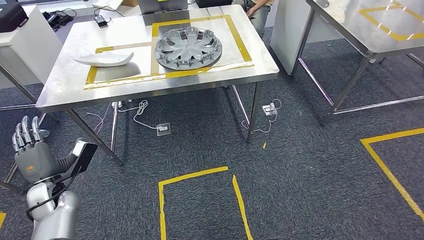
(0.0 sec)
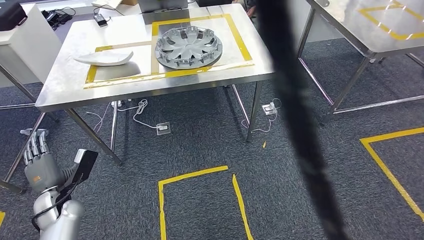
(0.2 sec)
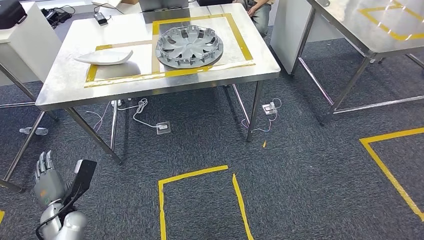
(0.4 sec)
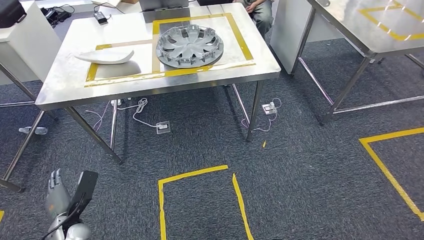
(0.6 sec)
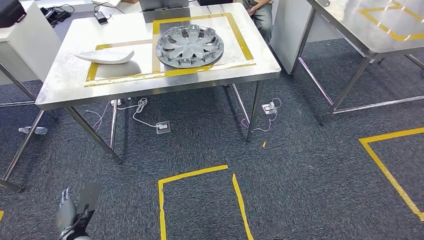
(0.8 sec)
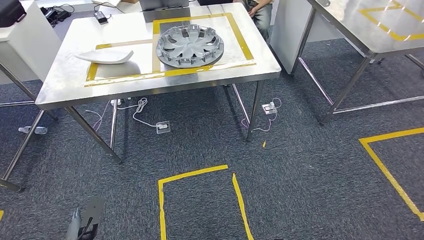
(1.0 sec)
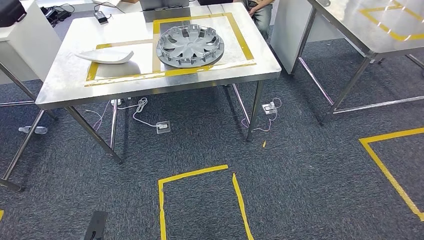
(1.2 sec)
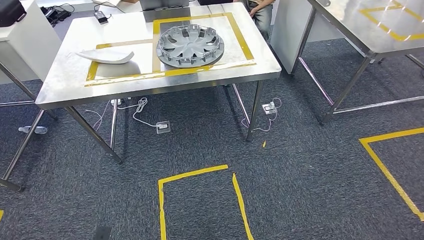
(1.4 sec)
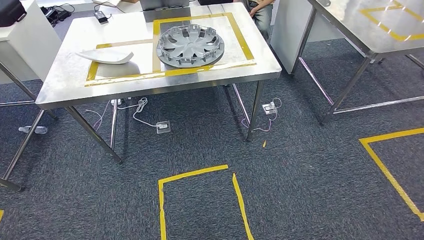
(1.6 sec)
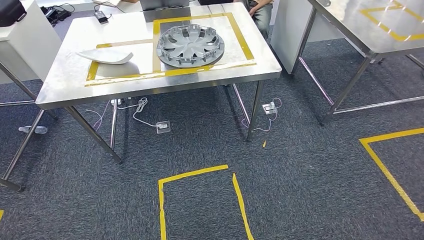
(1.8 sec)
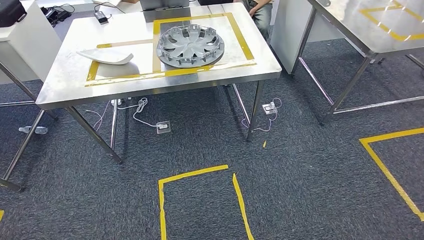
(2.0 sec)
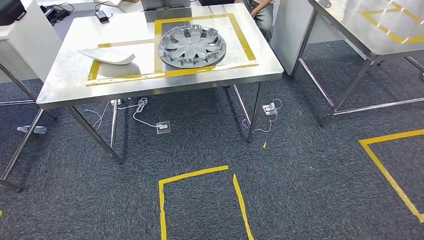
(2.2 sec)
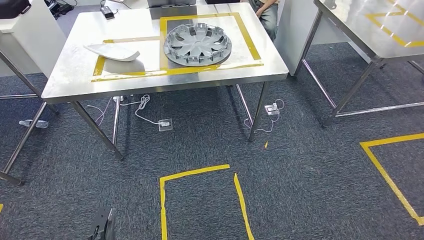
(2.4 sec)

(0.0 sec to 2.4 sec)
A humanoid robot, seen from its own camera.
Step, 0.0 sec - 2.4 sec: Return to the initial position at the workbench.
0.0 sec - 1.2 sec: The right hand shifts by approximately 5 cm, while the left hand moves backward and downward, some 25 cm.
1.2 sec - 2.4 sec: The left hand moves about 15 cm backward and comes back, while the right hand goes approximately 15 cm backward.
